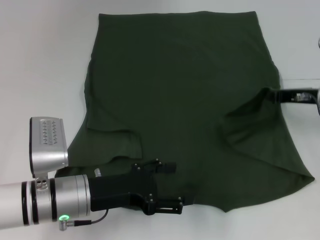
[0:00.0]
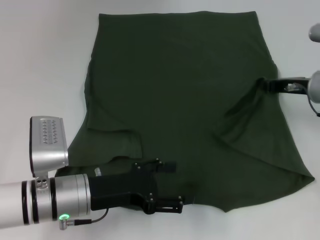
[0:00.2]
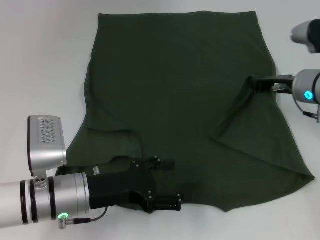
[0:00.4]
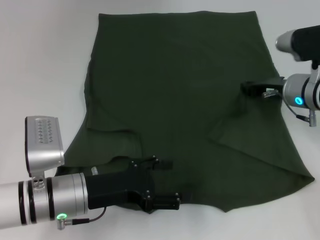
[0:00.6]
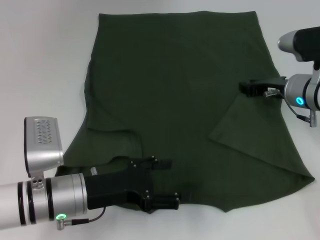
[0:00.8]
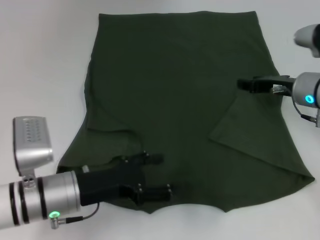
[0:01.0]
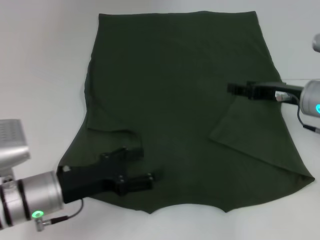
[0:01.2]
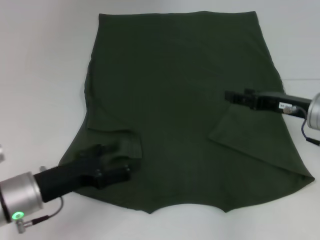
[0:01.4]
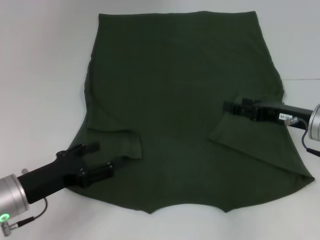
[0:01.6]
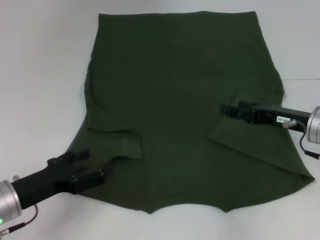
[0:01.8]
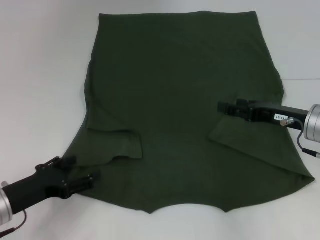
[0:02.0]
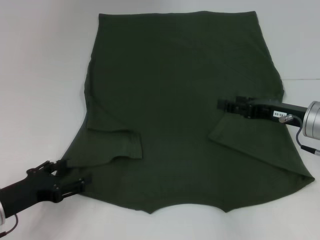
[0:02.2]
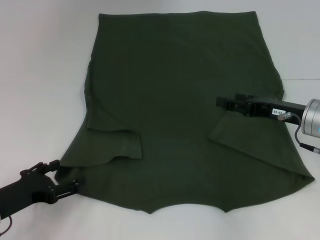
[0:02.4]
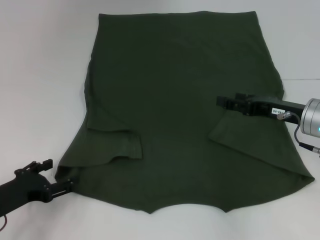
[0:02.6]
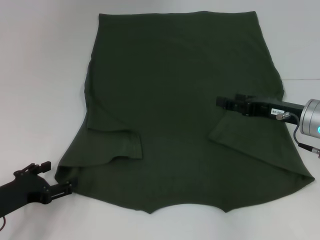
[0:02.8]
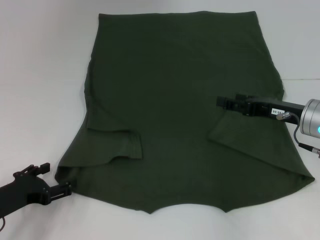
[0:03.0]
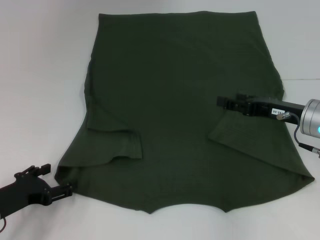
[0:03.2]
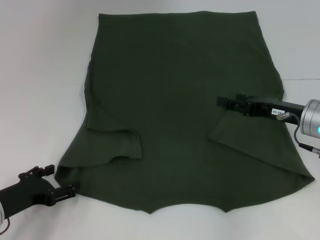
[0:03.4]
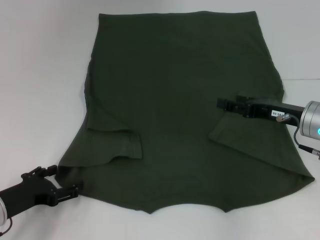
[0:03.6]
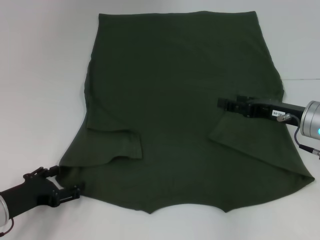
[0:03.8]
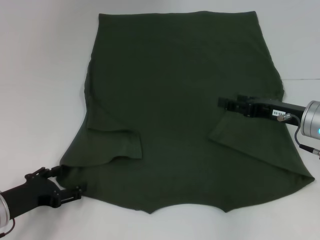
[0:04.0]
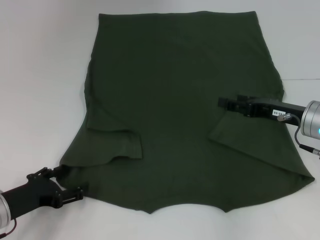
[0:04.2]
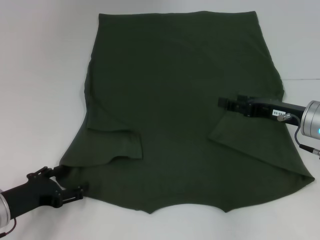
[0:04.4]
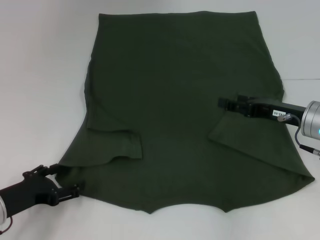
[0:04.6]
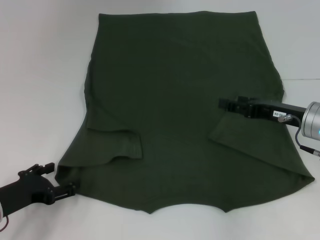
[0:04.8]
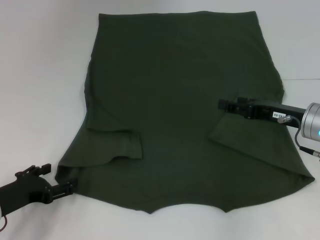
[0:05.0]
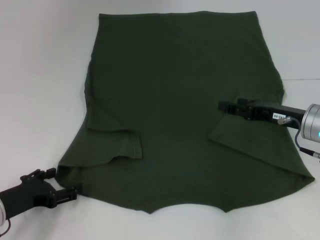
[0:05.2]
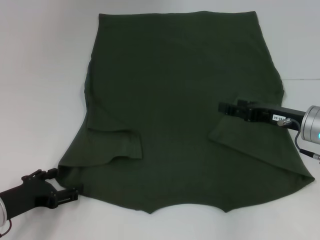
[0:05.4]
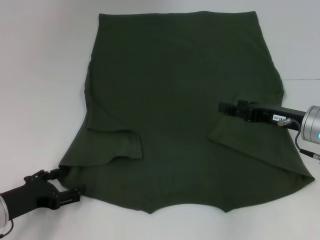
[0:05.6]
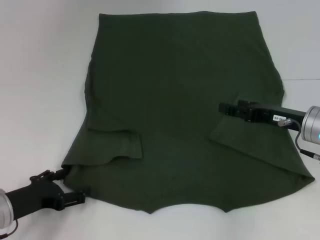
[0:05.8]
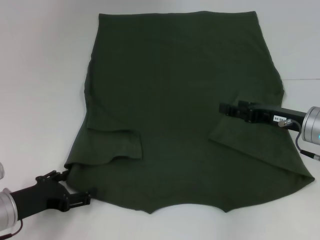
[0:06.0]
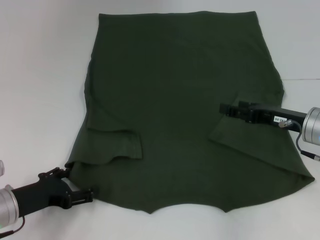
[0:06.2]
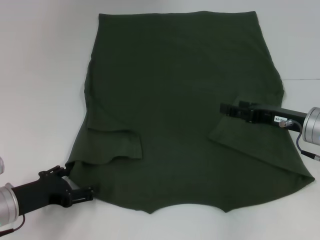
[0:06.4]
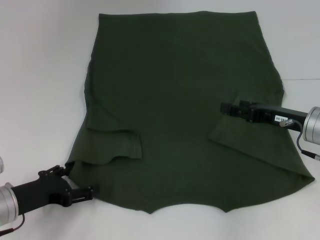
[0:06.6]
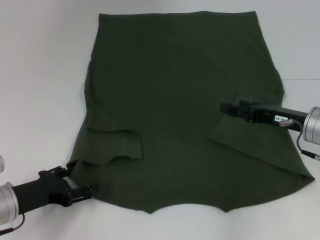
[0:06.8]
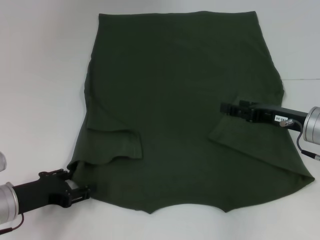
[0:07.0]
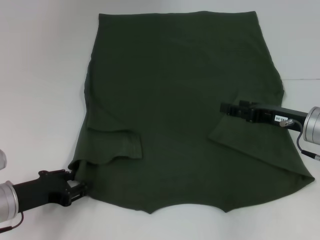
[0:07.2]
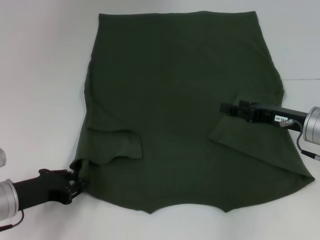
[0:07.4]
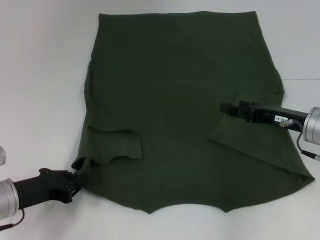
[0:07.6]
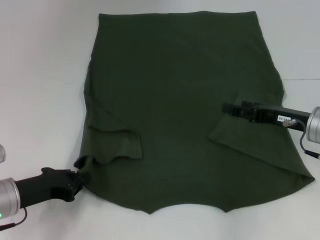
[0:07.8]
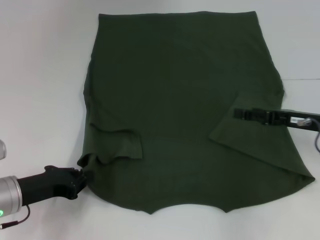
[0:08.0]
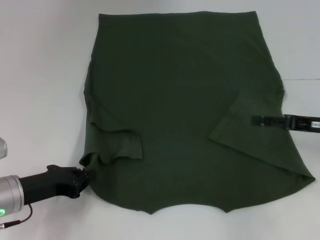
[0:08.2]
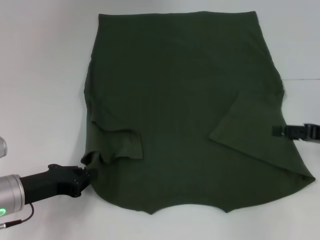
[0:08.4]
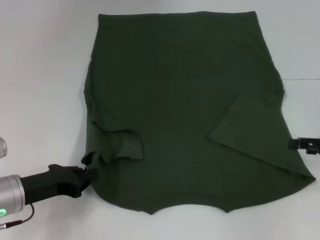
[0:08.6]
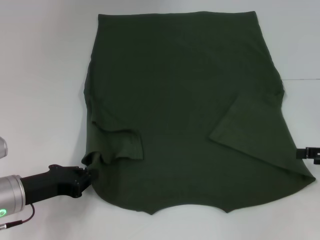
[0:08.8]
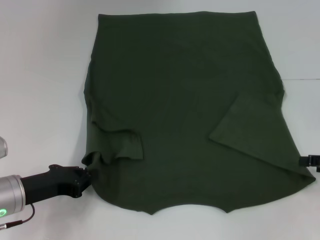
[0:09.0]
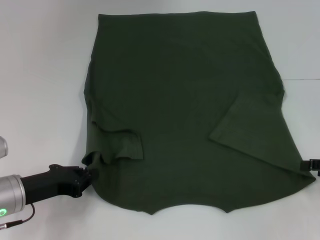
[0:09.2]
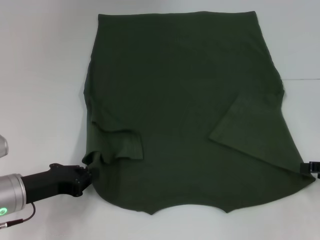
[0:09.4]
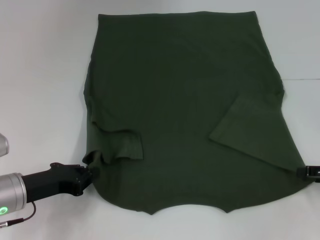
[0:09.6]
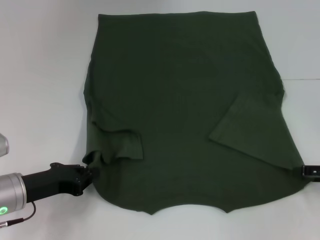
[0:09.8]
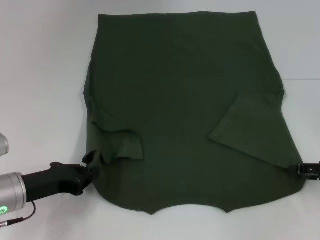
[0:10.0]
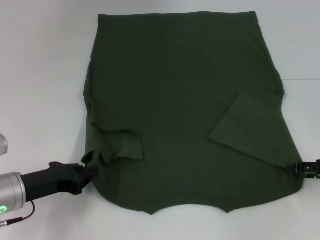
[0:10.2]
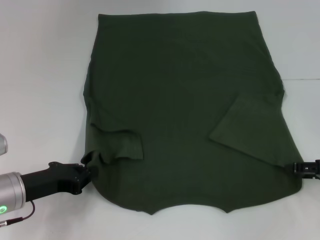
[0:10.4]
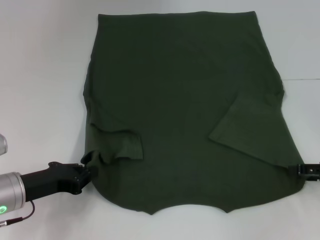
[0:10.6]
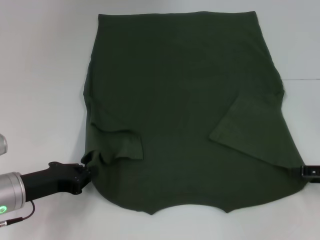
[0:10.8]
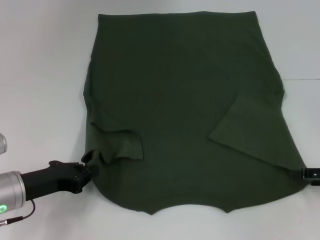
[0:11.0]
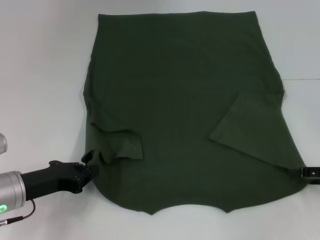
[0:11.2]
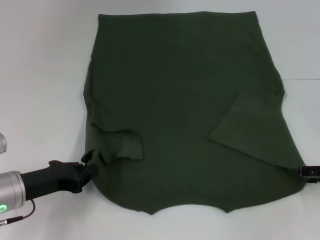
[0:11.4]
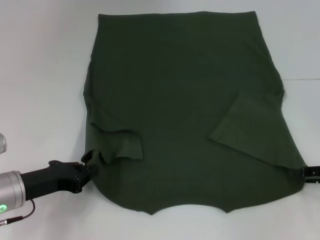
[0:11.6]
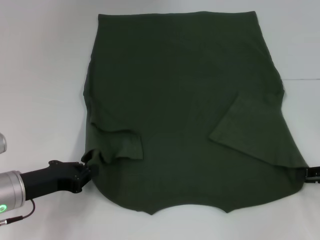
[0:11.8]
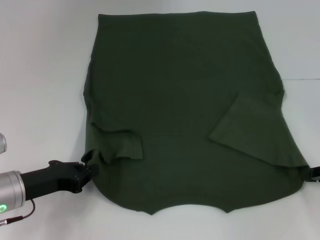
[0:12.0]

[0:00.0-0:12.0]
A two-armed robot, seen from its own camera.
Step, 0:00.0 to 0:09.0: Grab the bottom left corner with your left hand.
0:00.0 to 0:01.6: The right gripper shifts some 5 cm backward, and opens. Meanwhile the left gripper travels to the left by approximately 10 cm.
0:01.6 to 0:03.0: The left gripper shifts roughly 5 cm to the left.
0:03.0 to 0:04.4: There are only small adjustments of the grippers.
0:04.4 to 0:06.0: Neither gripper changes place.
0:06.0 to 0:07.6: The left gripper closes its fingers.
0:07.6 to 0:09.0: The right gripper goes approximately 15 cm to the right and backward.
0:09.0 to 0:10.4: There are only small adjustments of the grippers.

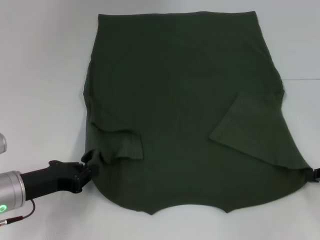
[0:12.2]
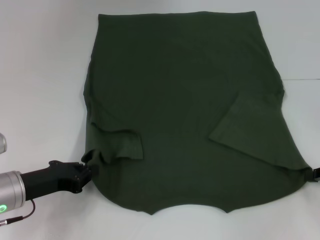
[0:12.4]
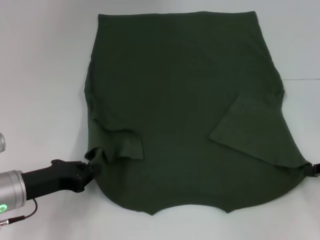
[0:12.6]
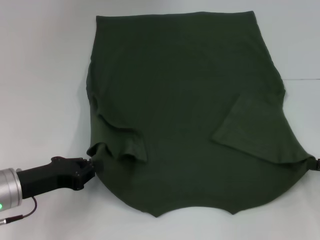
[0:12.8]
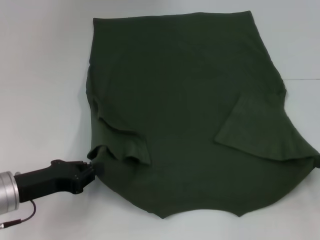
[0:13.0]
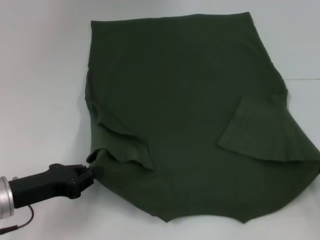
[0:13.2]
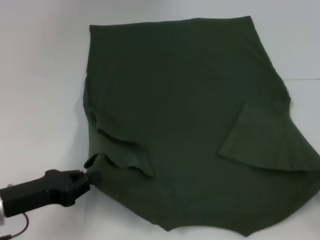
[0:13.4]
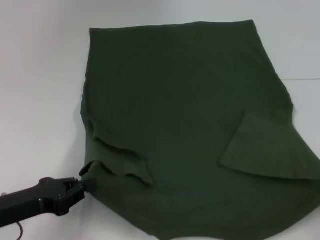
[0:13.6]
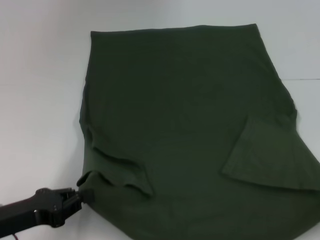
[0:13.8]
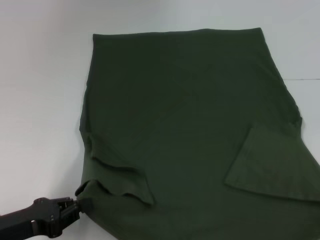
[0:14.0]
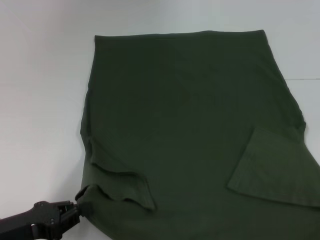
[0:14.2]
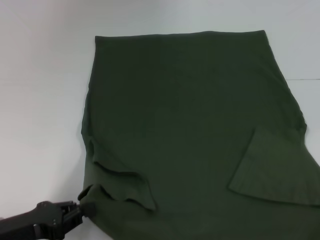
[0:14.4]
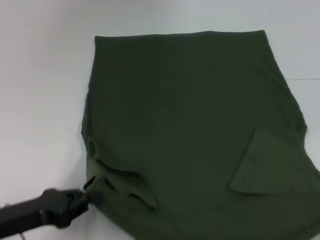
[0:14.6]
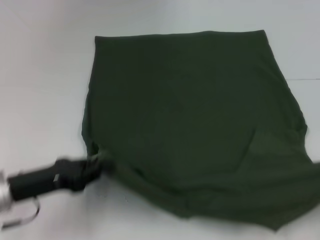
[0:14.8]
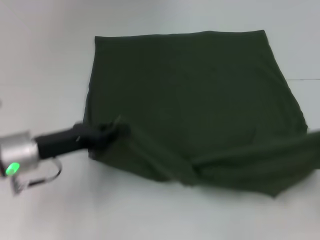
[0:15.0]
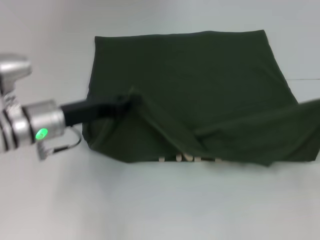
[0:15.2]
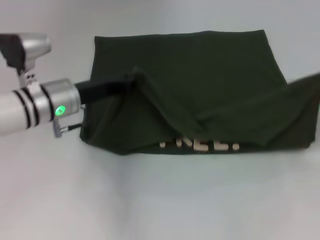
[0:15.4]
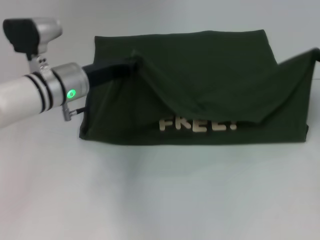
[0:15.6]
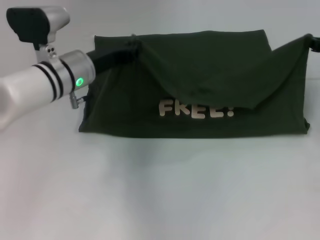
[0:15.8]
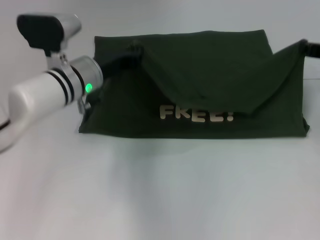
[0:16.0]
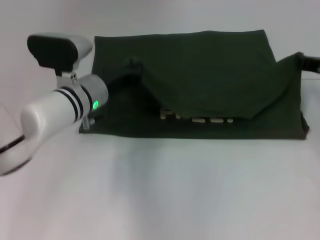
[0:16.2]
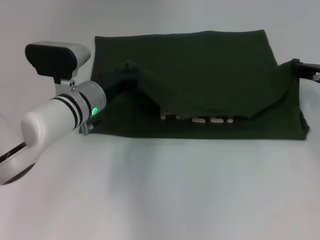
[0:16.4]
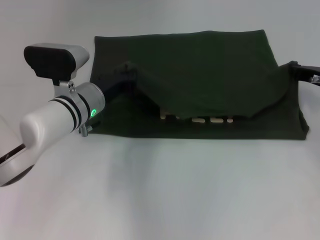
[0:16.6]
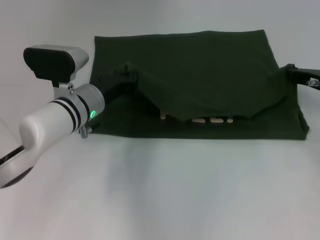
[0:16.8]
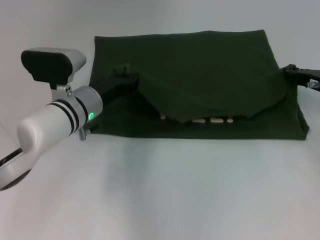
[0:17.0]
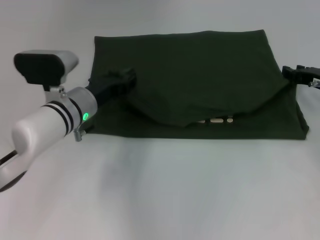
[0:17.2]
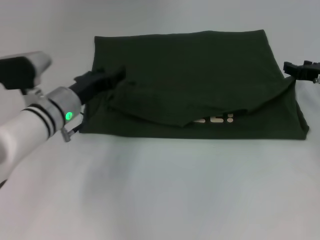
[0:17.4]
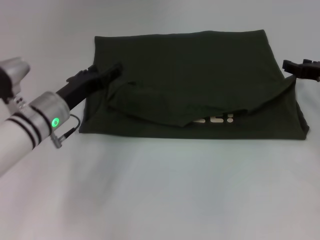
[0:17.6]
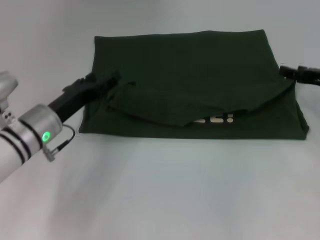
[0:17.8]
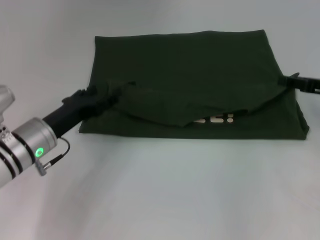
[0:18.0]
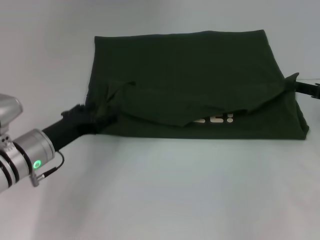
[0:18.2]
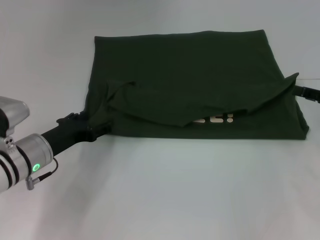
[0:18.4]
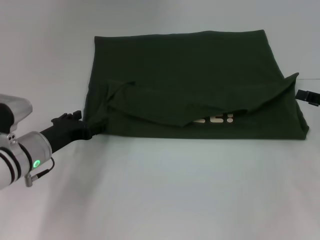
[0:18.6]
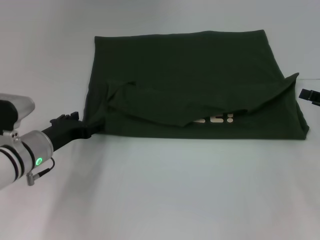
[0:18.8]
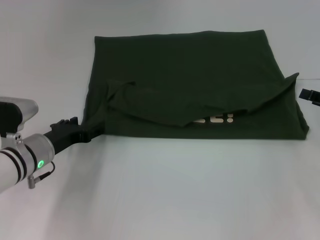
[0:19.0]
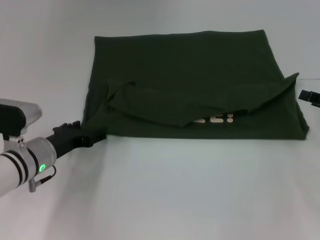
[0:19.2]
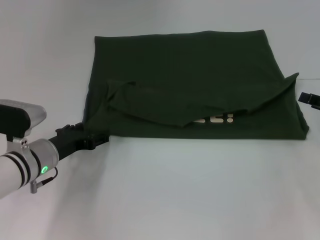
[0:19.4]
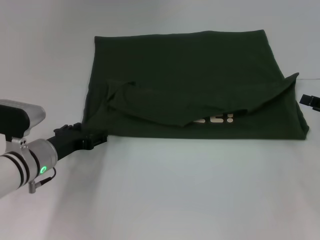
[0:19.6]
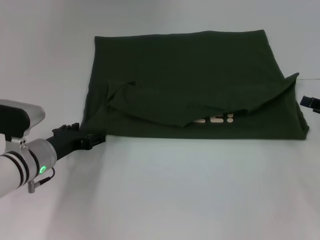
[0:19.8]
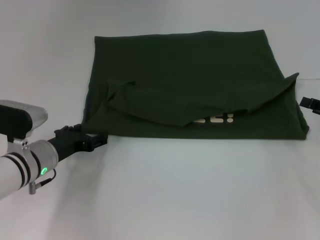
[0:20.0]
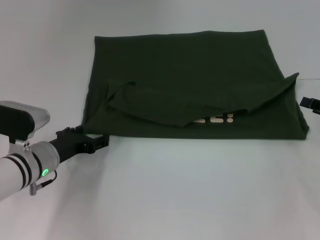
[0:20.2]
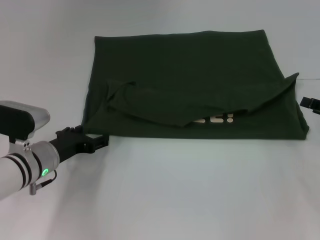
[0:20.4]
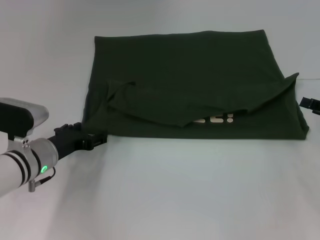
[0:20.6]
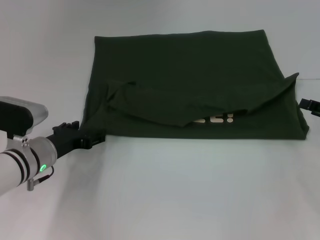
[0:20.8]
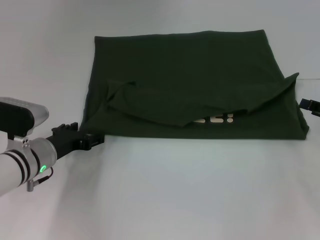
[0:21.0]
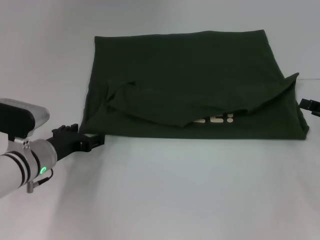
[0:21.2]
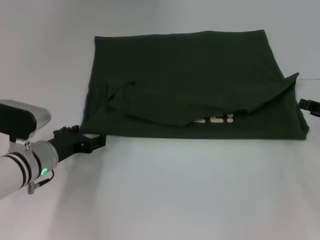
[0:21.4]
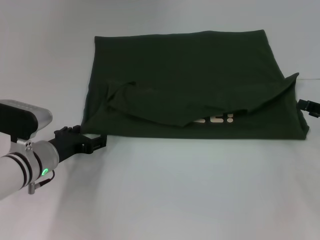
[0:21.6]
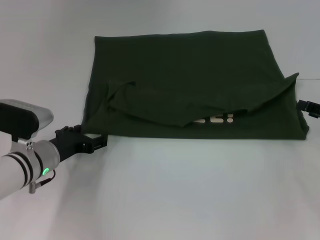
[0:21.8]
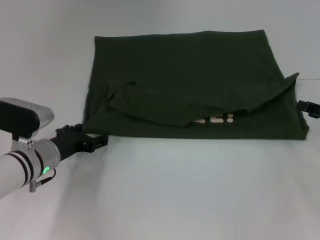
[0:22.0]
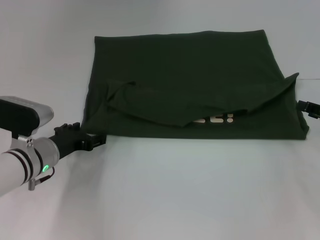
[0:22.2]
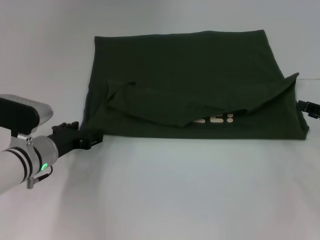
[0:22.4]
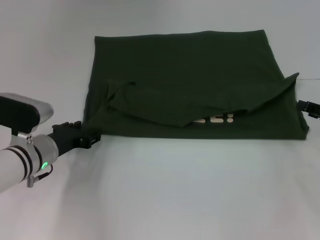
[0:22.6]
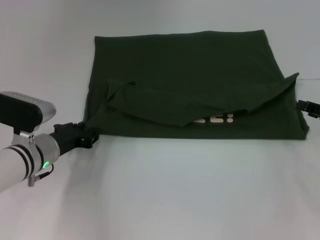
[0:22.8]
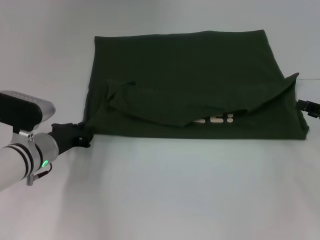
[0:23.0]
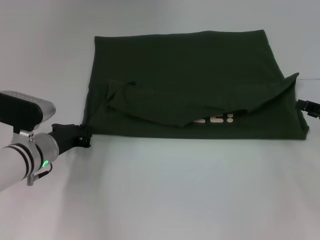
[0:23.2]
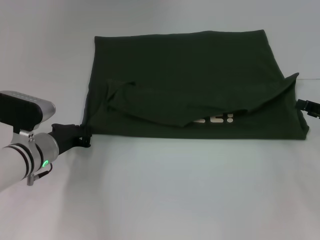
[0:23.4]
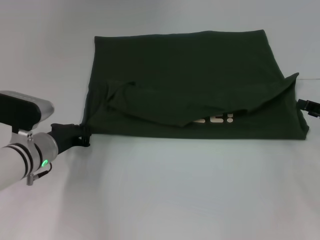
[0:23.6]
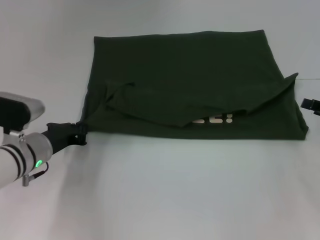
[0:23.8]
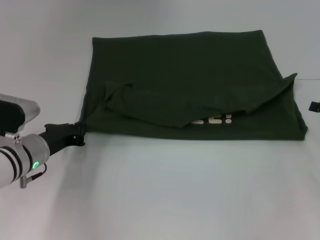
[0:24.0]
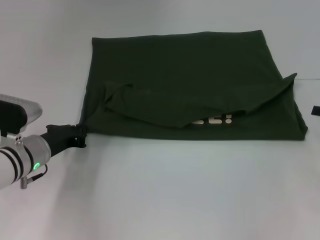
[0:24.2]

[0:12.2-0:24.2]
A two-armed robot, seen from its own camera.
Step, 0:13.2 to 0:17.8: Fold the clothes with your left hand.
Step, 0:13.2 to 0:17.8: Fold the clothes with your right hand.
0:12.2 to 0:13.8: The right gripper moves backward, some 10 cm. The left gripper is displaced backward by about 5 cm.
0:13.8 to 0:15.2: The right gripper travels forward by about 15 cm. Meanwhile the left gripper is displaced forward and to the right by about 15 cm.
0:15.2 to 0:16.6: The left gripper moves to the right and forward, about 10 cm. The right gripper moves forward and to the left, approximately 15 cm.
0:16.6 to 0:18.2: The left gripper goes approximately 10 cm to the left and backward, and opens. Meanwhile the right gripper goes approximately 5 cm backward, and opens.
0:18.2 to 0:19.8: The grippers make only small movements.
0:19.8 to 0:21.2: Both grippers stay put.
0:21.2 to 0:22.6: Both grippers stay put.
0:22.6 to 0:24.2: The left gripper closes up.
